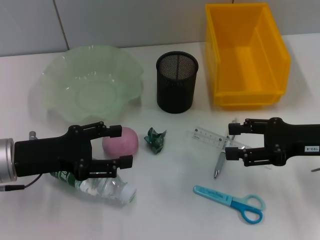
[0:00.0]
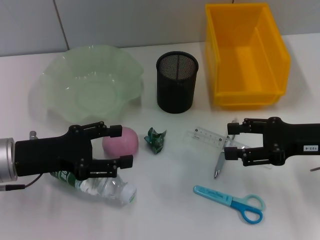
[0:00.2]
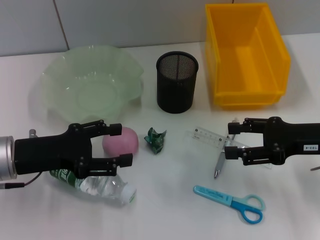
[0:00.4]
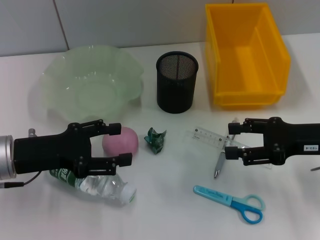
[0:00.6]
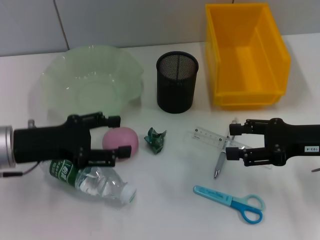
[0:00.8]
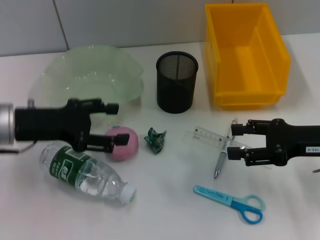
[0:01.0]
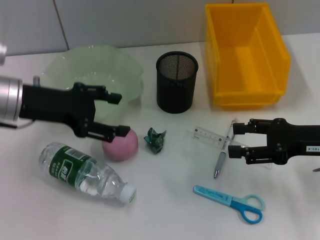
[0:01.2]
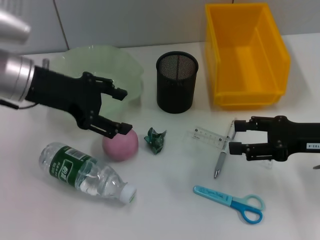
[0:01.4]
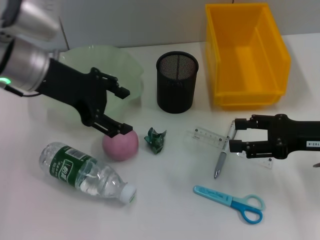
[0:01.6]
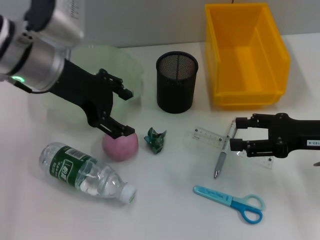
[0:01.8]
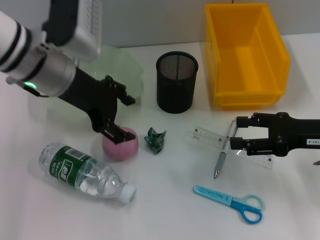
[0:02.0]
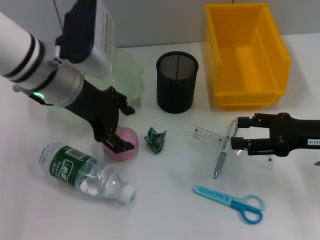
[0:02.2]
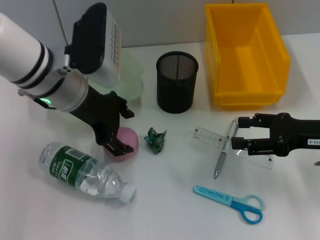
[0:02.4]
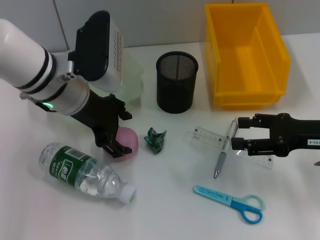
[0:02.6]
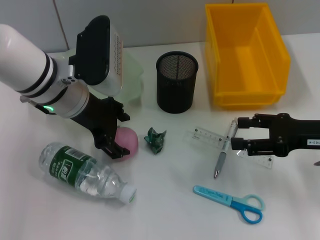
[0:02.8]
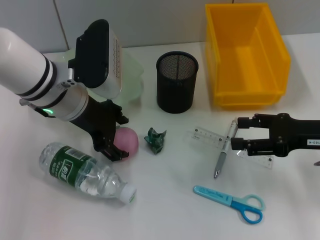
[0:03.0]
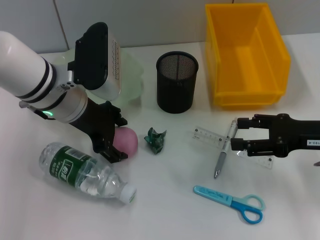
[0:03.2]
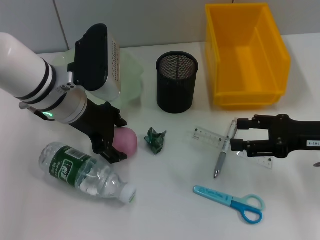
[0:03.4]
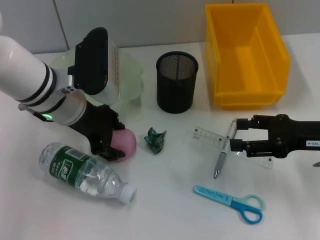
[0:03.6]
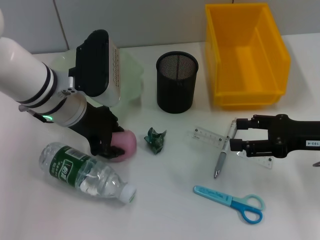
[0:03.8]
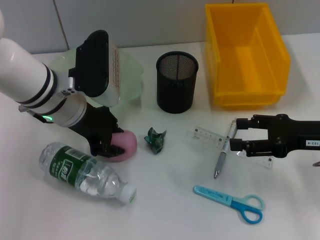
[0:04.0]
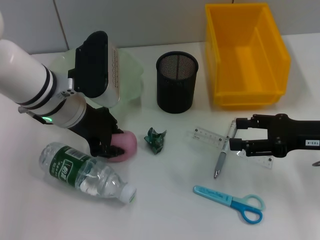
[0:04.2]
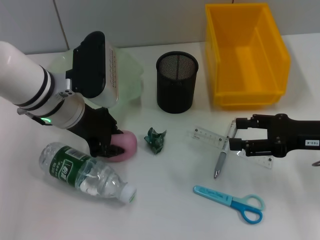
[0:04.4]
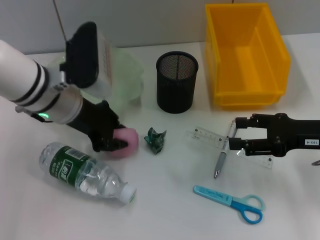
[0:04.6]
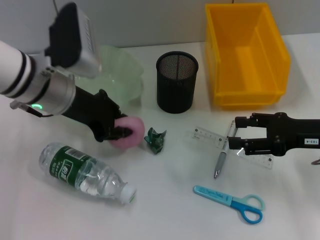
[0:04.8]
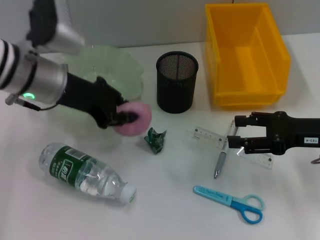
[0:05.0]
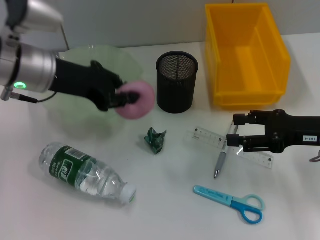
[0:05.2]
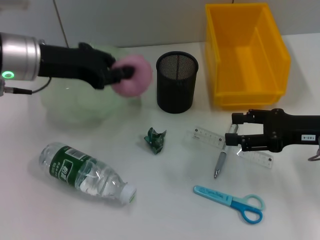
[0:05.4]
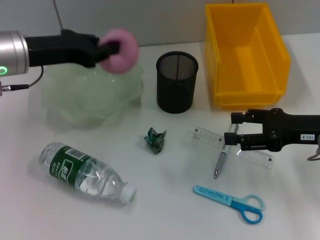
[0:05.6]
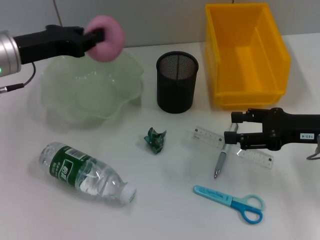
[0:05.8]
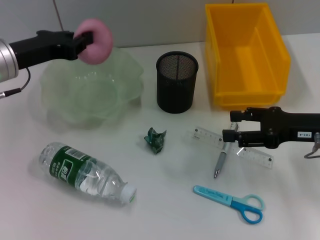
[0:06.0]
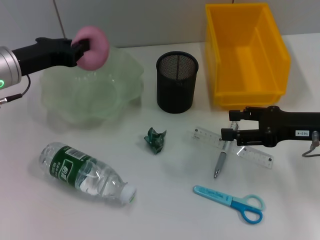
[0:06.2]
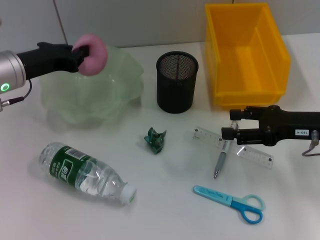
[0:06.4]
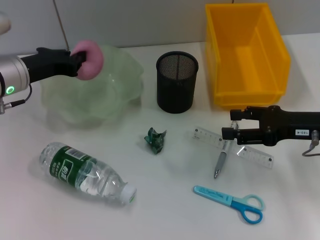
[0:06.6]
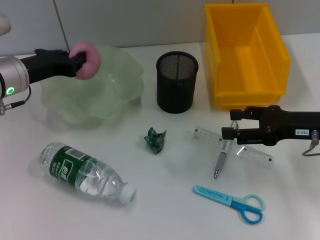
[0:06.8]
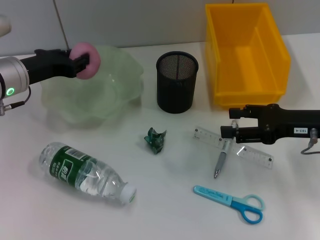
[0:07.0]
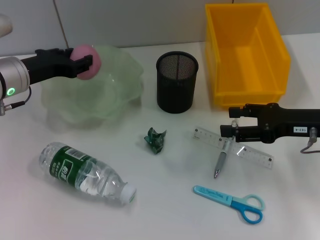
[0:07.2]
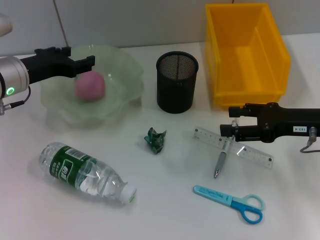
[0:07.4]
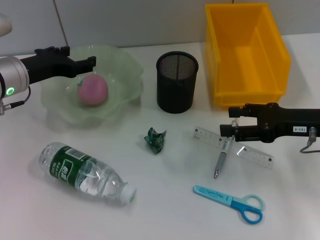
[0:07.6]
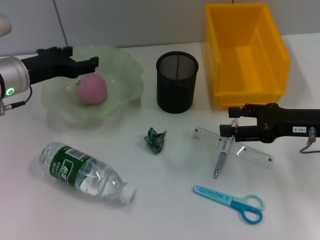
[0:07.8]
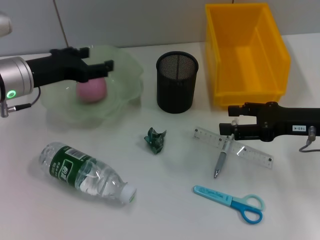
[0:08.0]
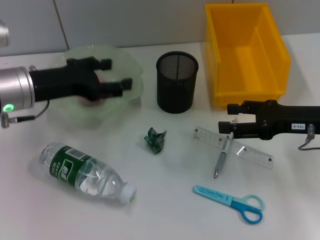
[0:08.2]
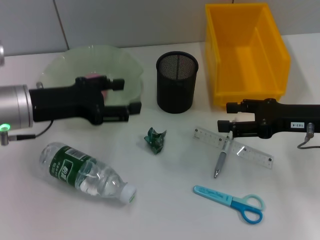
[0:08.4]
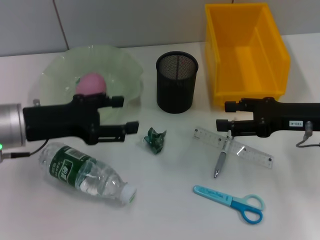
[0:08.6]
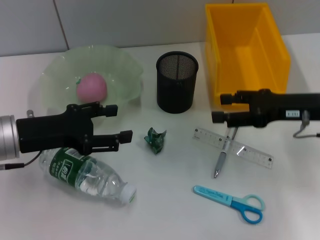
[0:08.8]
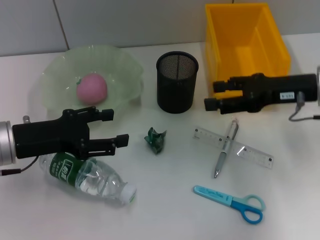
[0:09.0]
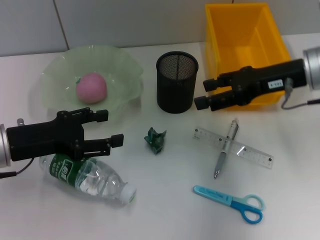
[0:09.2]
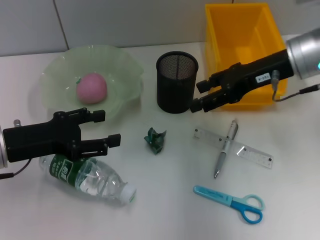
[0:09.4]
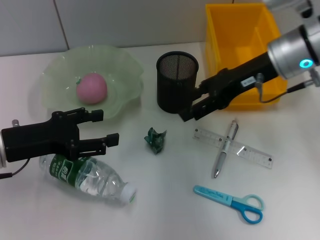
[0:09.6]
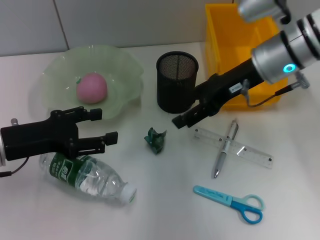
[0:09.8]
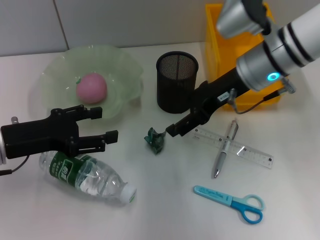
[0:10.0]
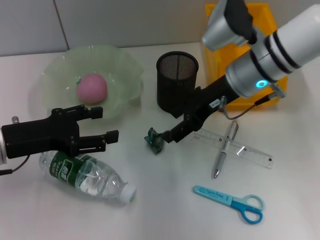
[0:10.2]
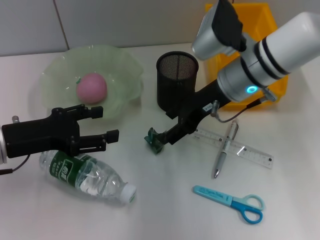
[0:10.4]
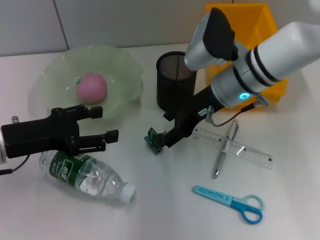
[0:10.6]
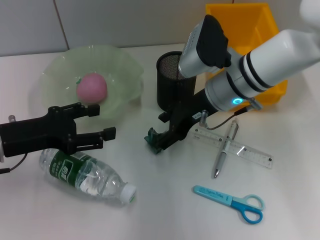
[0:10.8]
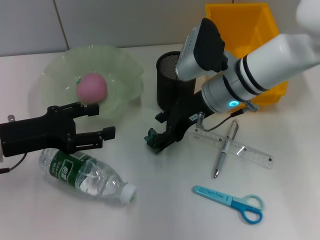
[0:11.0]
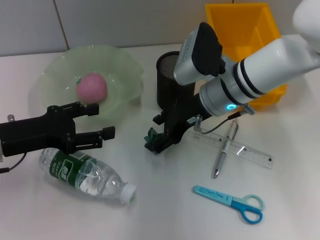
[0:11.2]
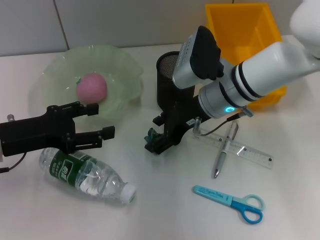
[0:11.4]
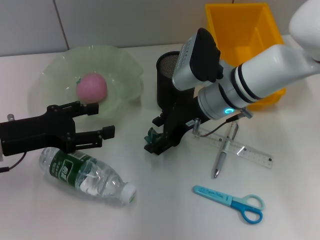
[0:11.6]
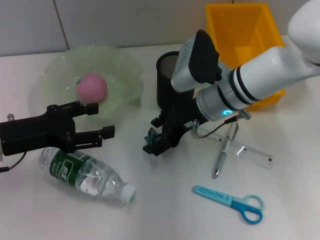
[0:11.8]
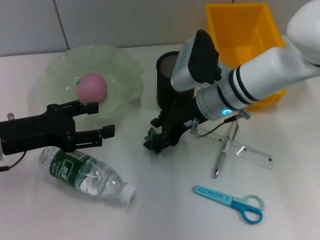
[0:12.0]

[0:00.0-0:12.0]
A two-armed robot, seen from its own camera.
Step, 0:00.0 to 0:04.2: Grab the peach with the left hand.
Step, 0:04.4 to 0:07.4: Place the peach into the fruit bowl with the left hand.
0:00.0 to 0:01.6: The left gripper moves upward, forward and to the right, approximately 15 cm.
0:01.6 to 0:03.0: The left gripper shifts approximately 5 cm downward.
0:03.0 to 0:04.4: The left gripper closes up.
0:04.4 to 0:06.0: The left gripper travels to the left by approximately 10 cm.
0:06.0 to 0:07.6: The left gripper opens.
0:07.6 to 0:09.0: The left gripper is displaced backward by about 10 cm. The right gripper moves roughly 5 cm.
0:09.0 to 0:10.4: The right gripper is displaced to the left by roughly 15 cm.
0:10.4 to 0:12.0: The right gripper ends up roughly 5 cm from where it was.

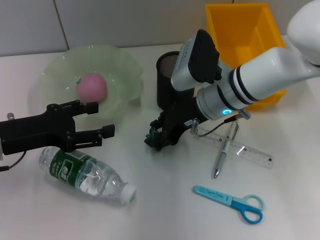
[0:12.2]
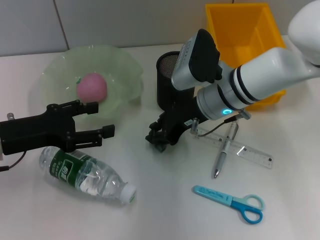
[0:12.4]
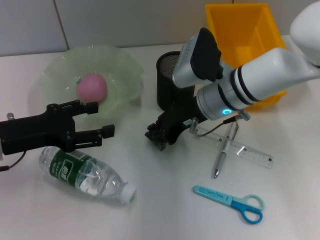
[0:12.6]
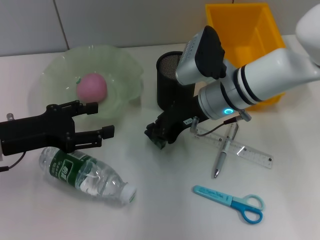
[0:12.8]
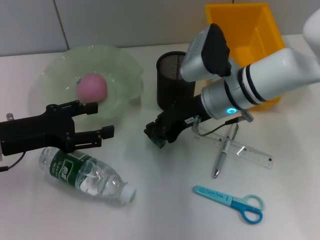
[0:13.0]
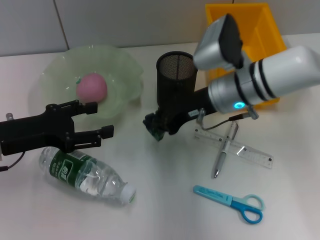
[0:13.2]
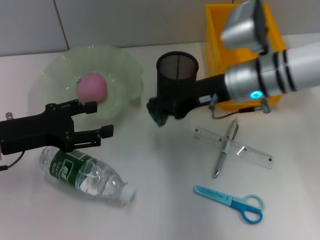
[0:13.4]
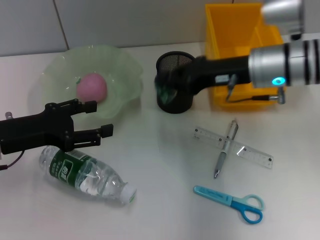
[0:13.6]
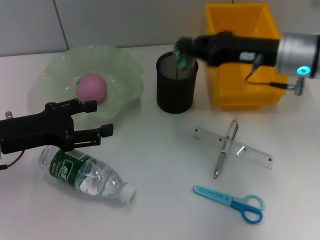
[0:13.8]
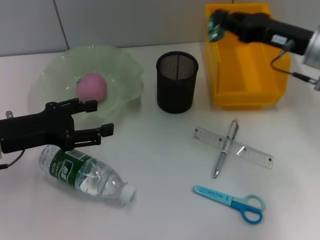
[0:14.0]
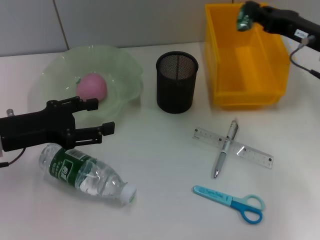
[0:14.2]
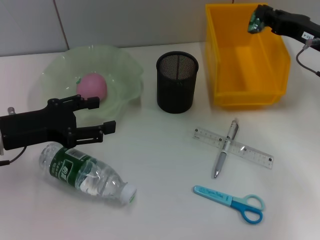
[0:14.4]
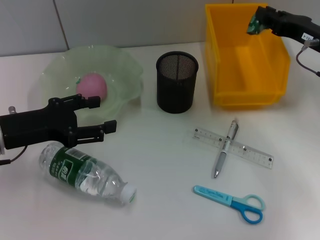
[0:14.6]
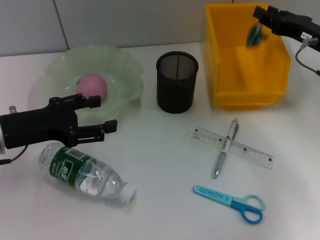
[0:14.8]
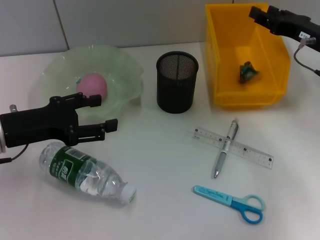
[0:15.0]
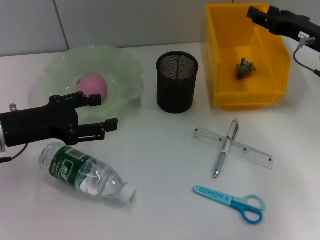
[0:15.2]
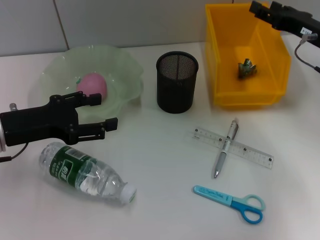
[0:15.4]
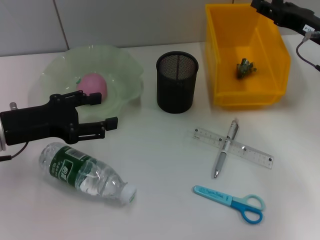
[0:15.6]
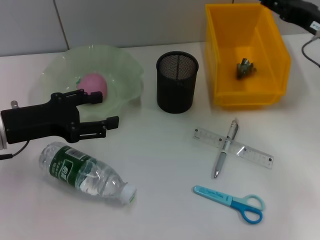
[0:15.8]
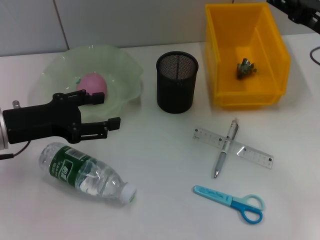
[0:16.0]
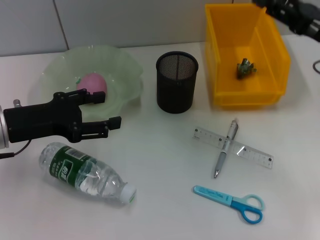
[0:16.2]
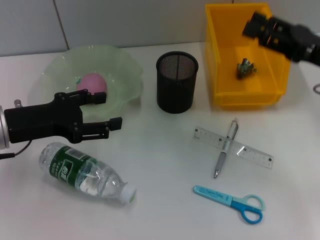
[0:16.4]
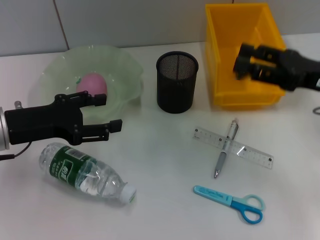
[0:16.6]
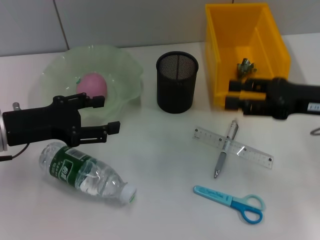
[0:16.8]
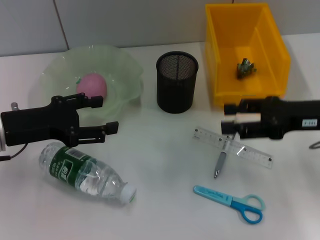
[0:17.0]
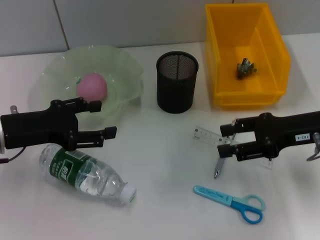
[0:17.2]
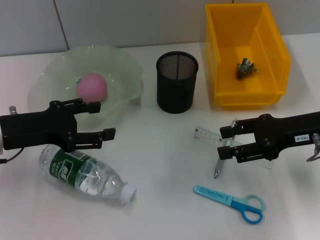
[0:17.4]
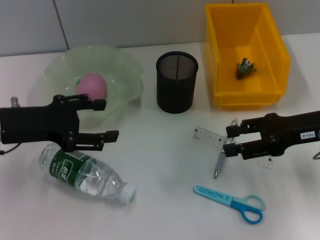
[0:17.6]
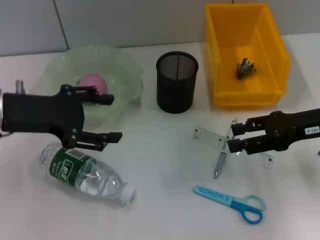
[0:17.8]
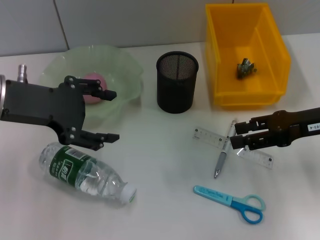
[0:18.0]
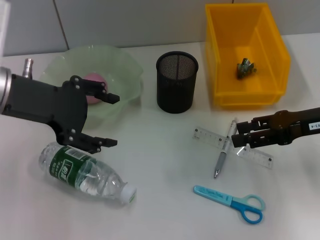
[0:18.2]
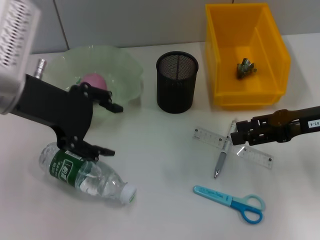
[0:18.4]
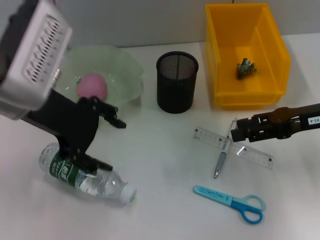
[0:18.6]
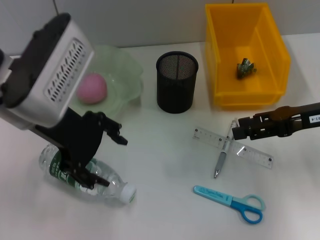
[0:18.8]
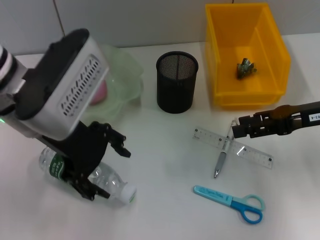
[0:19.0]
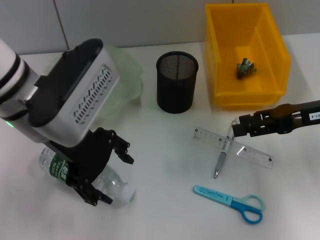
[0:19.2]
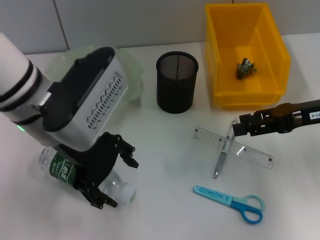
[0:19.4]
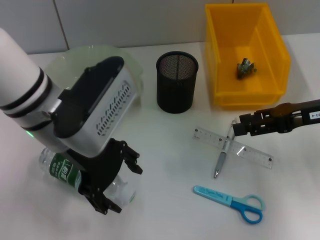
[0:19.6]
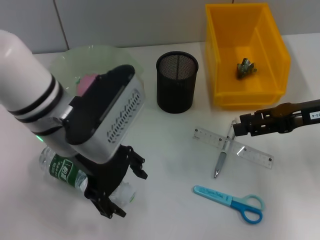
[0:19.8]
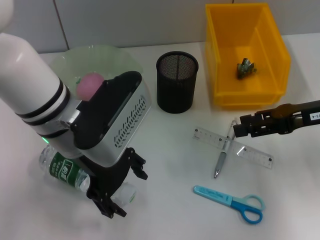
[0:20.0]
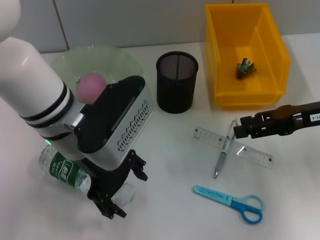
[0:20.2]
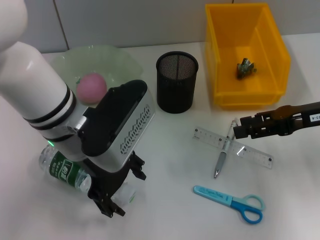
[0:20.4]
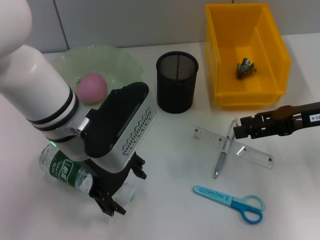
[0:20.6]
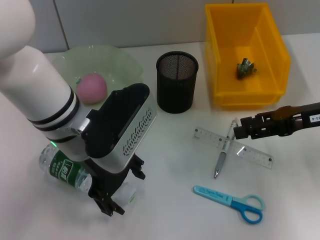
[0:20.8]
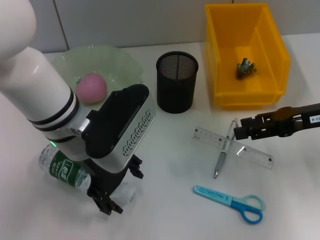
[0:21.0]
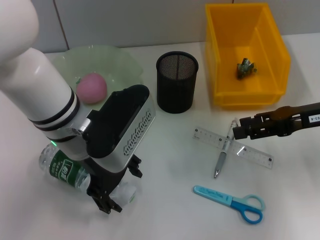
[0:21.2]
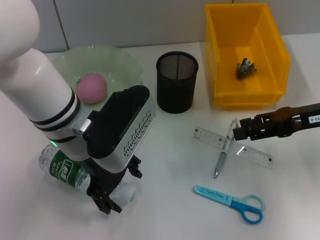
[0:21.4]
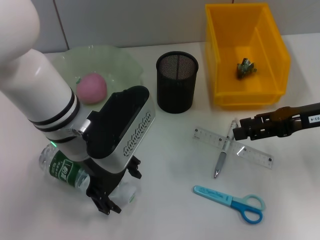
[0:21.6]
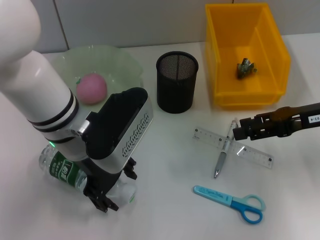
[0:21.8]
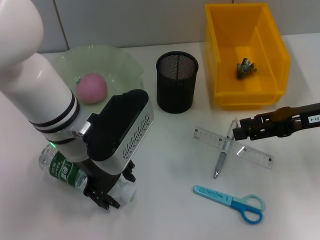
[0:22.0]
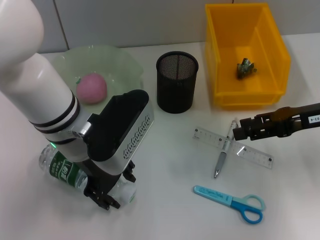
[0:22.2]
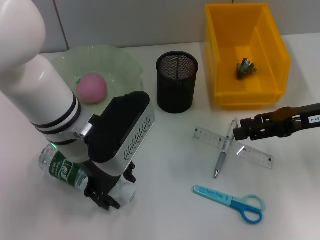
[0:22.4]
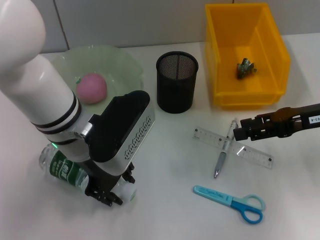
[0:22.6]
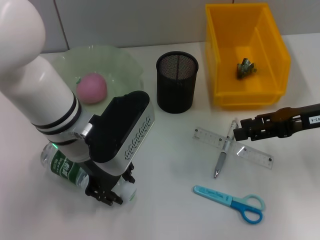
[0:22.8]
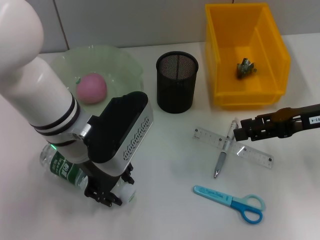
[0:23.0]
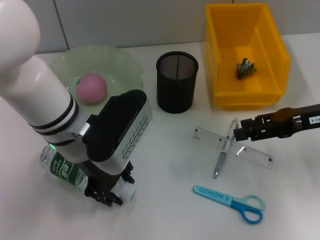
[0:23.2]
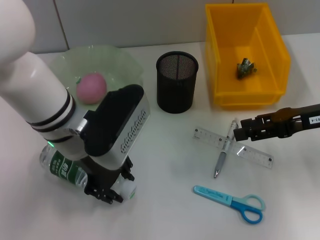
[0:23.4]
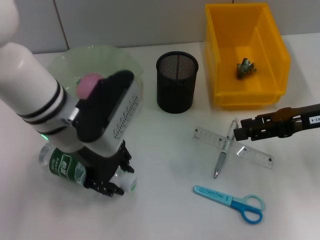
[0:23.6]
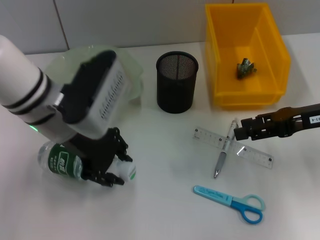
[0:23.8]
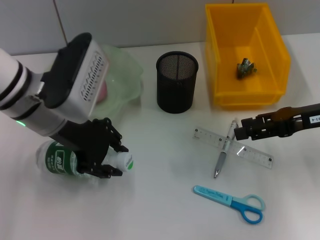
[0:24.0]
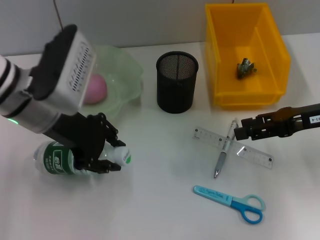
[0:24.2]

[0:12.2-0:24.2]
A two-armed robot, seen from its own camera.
Step, 0:12.8 to 0:15.4: Place the plastic into the trash can with the right hand.
Step, 0:15.6 to 0:22.8: Grab the water bottle with the left hand.
0:12.2 to 0:13.8: The right gripper heads to the right and upward, covering about 10 cm, and closes.
0:13.8 to 0:15.2: The right gripper heads to the right, covering roughly 10 cm, and opens its fingers.
0:15.2 to 0:16.6: The right gripper moves backward, approximately 10 cm.
0:16.6 to 0:18.2: The left gripper heads upward, covering approximately 10 cm.
0:18.2 to 0:19.8: The left gripper heads to the right, covering approximately 10 cm.
0:19.8 to 0:21.2: The grippers stay close to where they were, moving slightly.
0:21.2 to 0:22.6: The left gripper closes up.
0:22.6 to 0:24.2: The left gripper is displaced to the left by roughly 5 cm.
